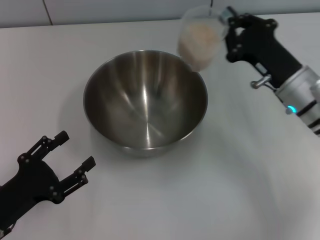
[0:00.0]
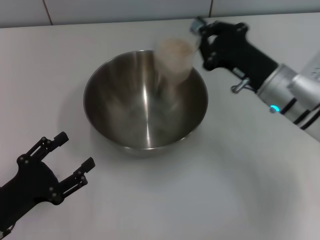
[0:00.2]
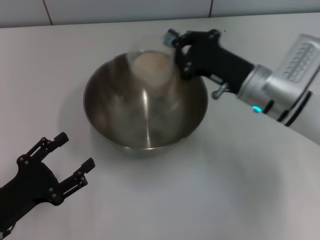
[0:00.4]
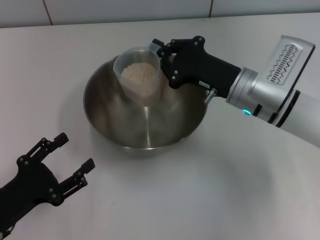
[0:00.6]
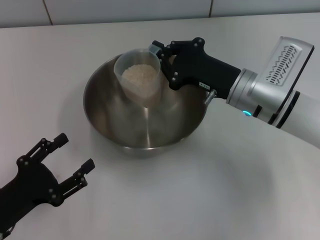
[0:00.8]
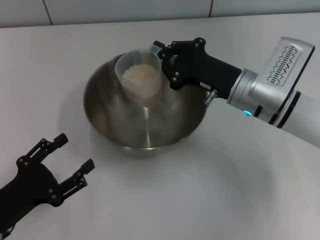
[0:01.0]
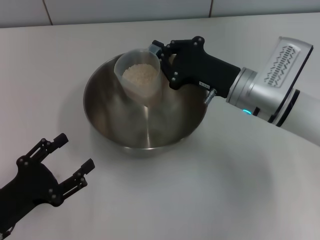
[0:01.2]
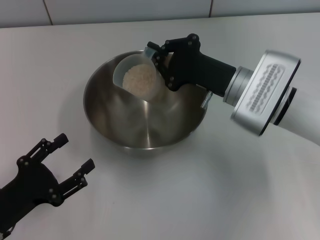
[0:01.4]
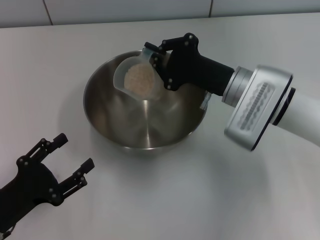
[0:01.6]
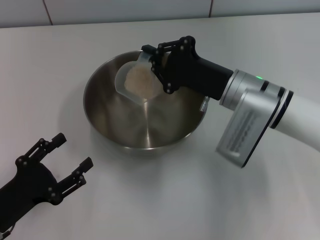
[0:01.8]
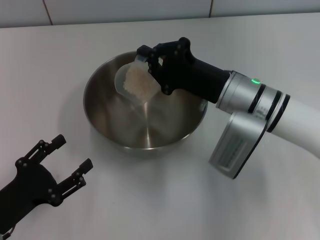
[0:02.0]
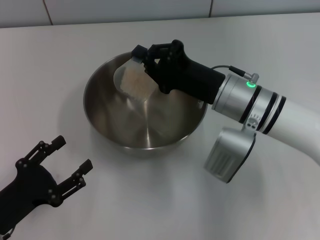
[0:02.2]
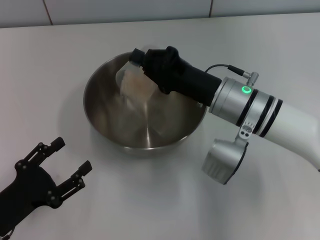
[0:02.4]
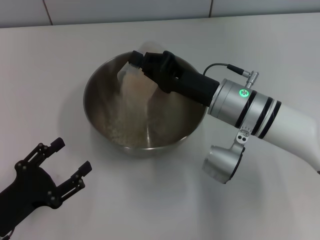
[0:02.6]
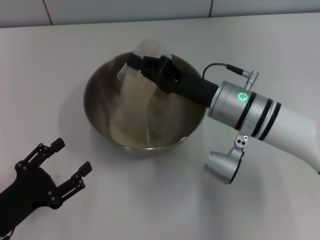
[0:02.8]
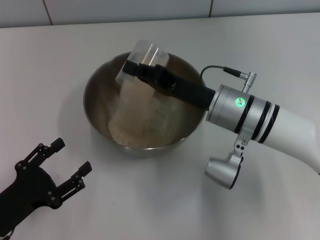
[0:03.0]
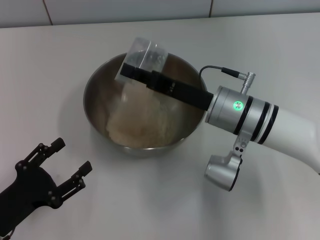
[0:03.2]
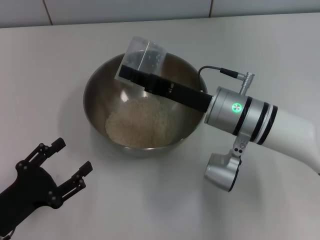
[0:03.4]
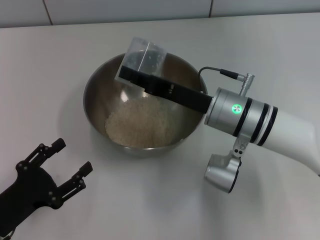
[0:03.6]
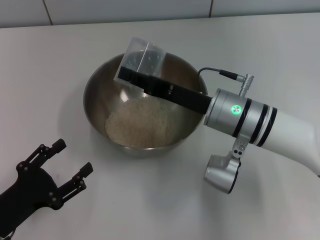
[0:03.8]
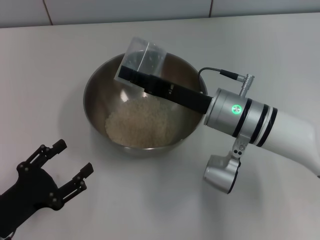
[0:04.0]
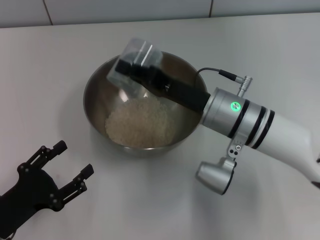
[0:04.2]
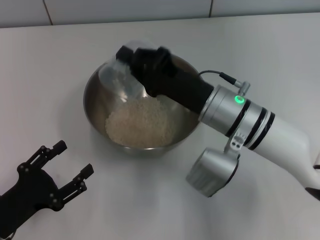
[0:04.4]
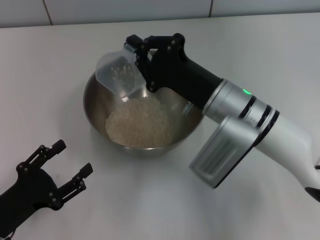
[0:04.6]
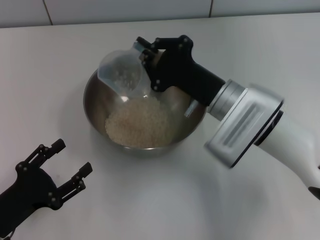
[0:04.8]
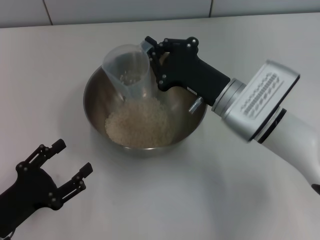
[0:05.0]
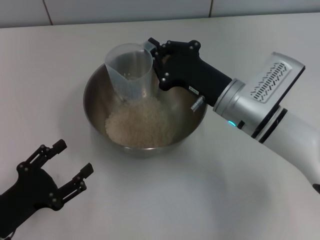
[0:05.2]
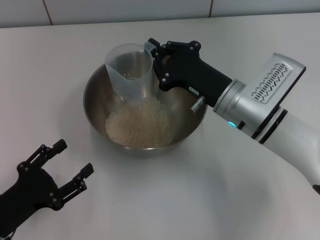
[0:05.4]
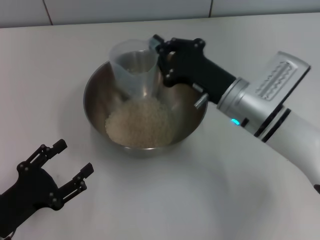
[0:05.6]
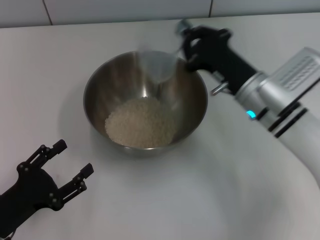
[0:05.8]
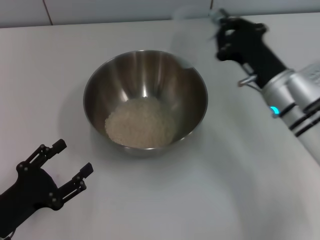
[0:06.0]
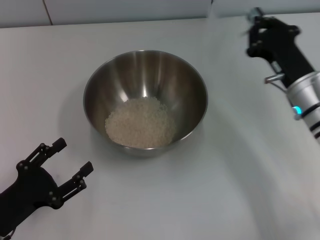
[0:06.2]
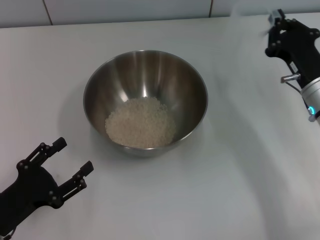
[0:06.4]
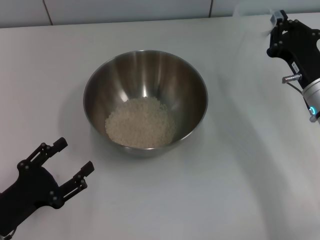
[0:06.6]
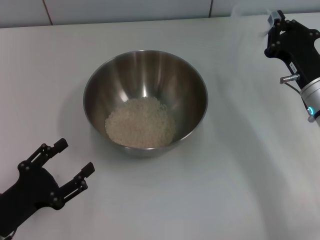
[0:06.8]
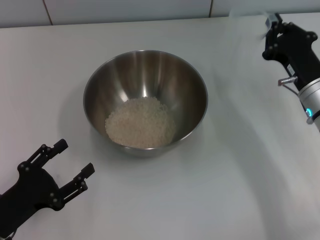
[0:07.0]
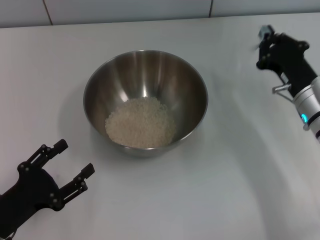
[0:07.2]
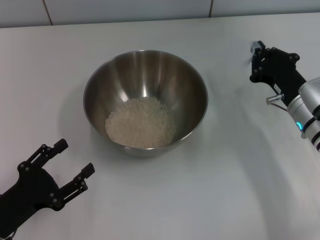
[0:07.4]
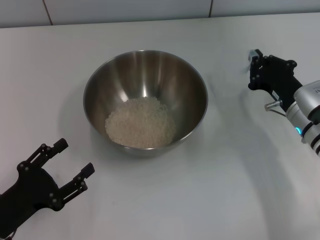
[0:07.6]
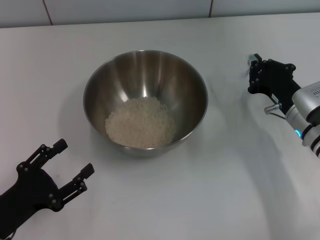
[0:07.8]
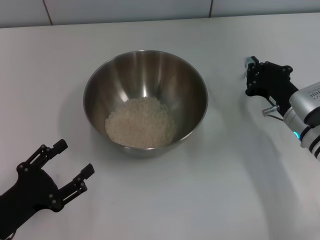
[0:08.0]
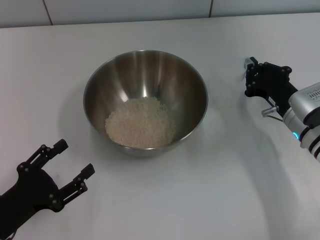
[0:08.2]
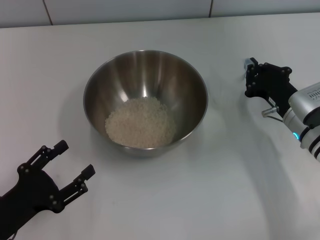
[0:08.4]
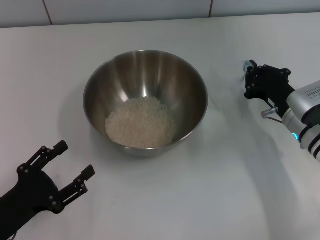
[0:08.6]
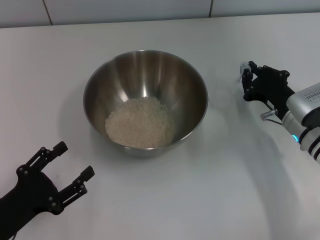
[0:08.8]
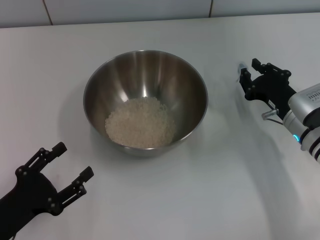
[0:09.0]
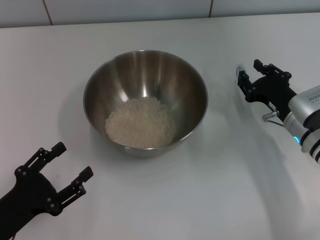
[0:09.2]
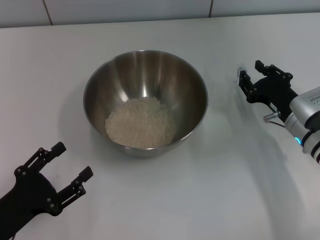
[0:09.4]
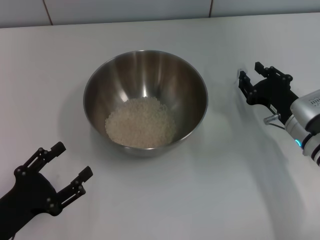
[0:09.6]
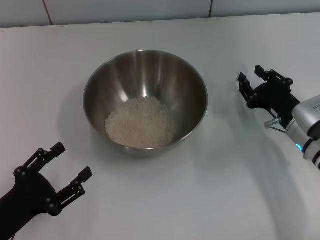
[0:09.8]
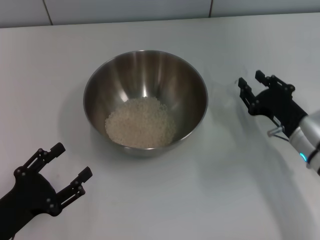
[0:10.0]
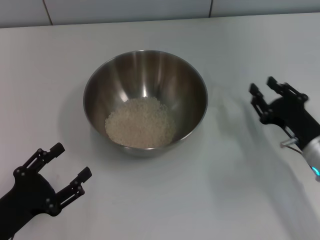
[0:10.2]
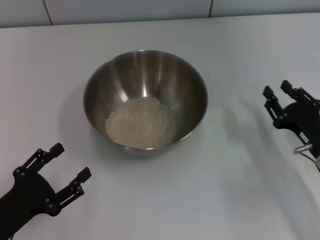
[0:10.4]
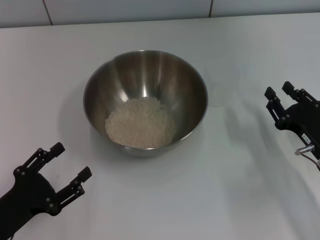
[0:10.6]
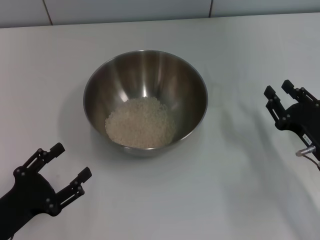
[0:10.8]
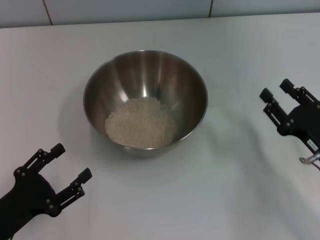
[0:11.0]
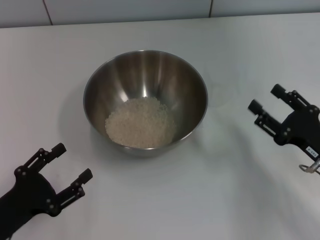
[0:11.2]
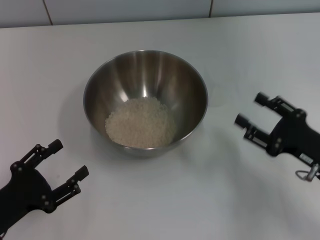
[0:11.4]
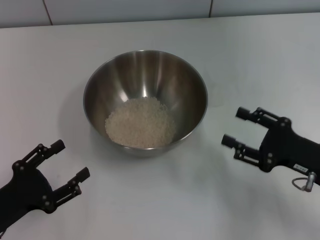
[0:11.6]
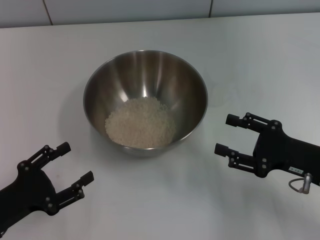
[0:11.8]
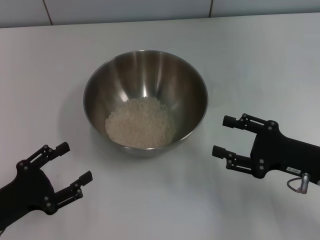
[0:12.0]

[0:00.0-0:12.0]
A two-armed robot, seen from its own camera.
Task of the whole recording: Place the bowl in the middle of the table with one hand and pour the rice from the grain cup into it with the other hand.
Step, 0:00.0 to 0:06.0: Pour the rice from the cup into the bowl with the right gripper.
Step, 0:06.2 to 0:10.0: Place the cup on the table with the right gripper.
0:00.0 to 0:01.6: The right gripper travels to the left by roughly 5 cm.
0:04.4 to 0:06.0: The right gripper travels to the right by approximately 10 cm.
0:06.0 to 0:07.6: The right gripper ends up roughly 5 cm from where it was.
0:07.6 to 0:09.0: Neither gripper changes place.
0:09.0 to 0:10.4: The right gripper goes about 5 cm backward.

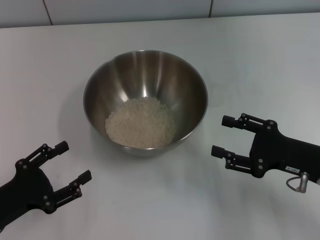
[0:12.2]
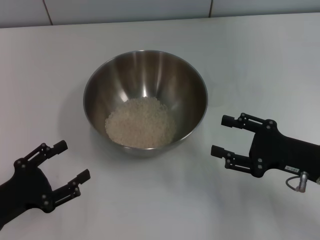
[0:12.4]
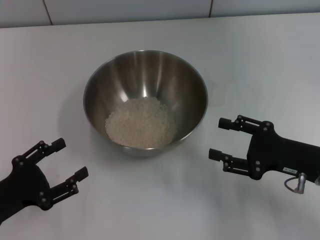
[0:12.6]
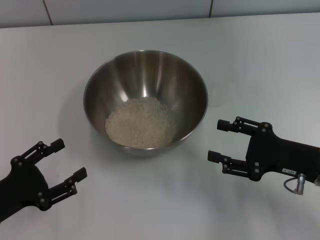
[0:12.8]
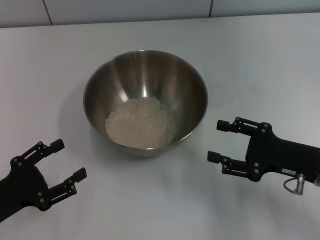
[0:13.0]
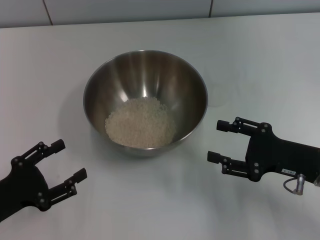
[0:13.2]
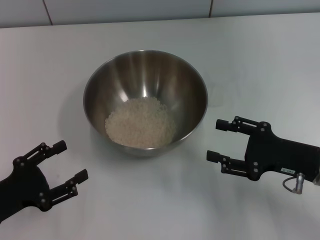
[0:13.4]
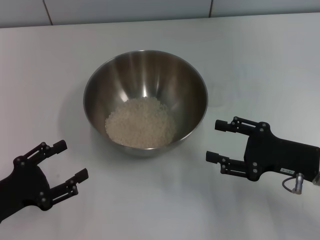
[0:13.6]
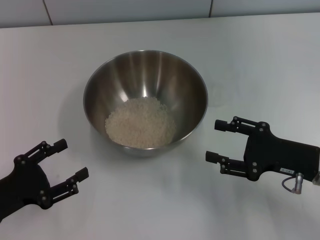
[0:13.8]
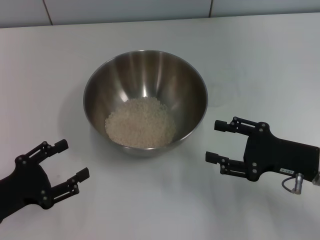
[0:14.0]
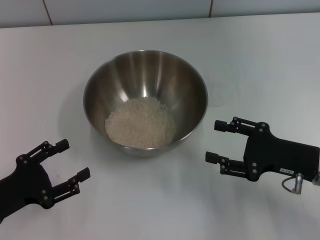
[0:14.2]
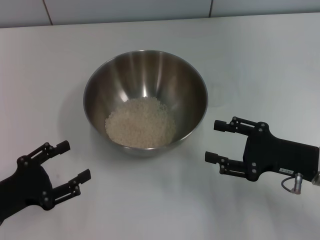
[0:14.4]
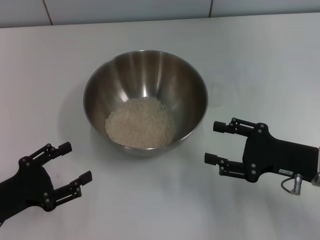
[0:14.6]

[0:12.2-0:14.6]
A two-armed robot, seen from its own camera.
Task of the whole recording: Place the bowl in the middle of the table with one hand and pour the rice from the grain cup into it with the other hand.
0:12.2 to 0:13.4: Neither gripper changes place.
0:13.4 to 0:14.6: Neither gripper changes place.
